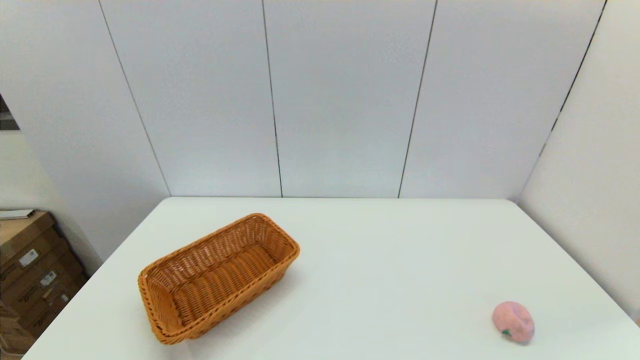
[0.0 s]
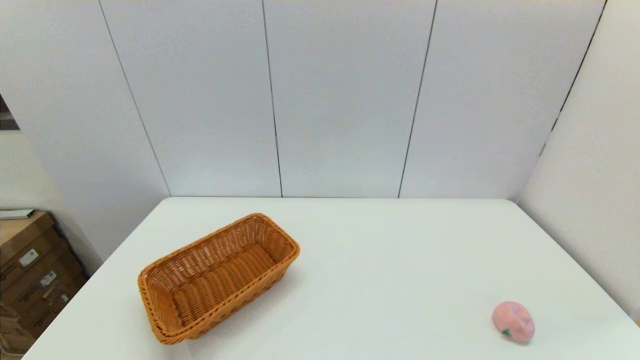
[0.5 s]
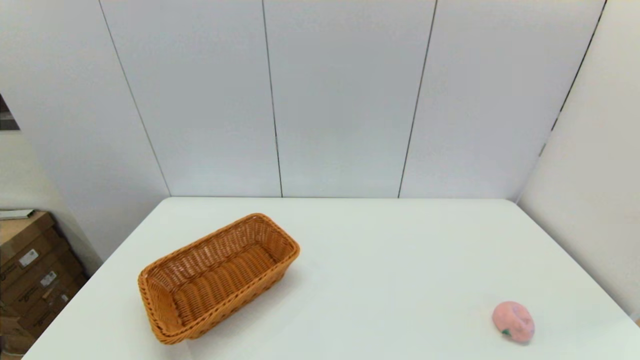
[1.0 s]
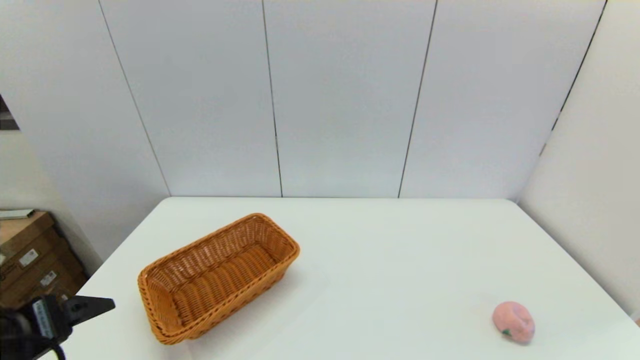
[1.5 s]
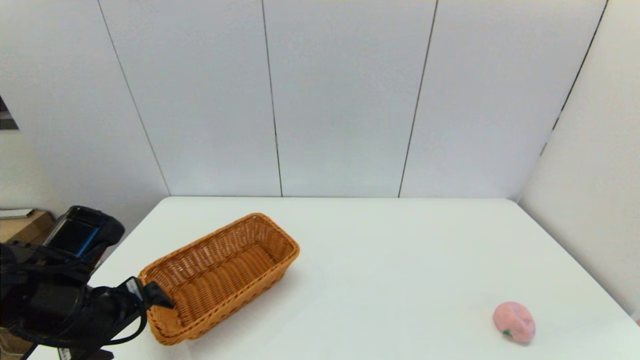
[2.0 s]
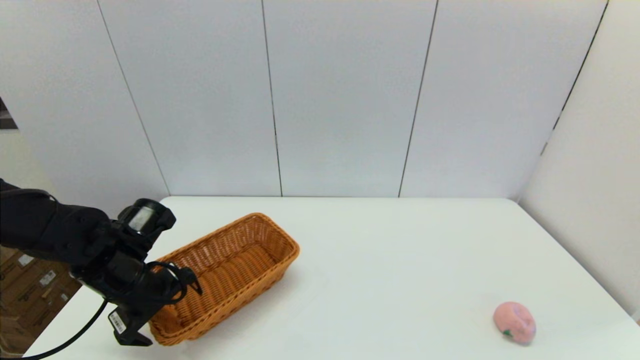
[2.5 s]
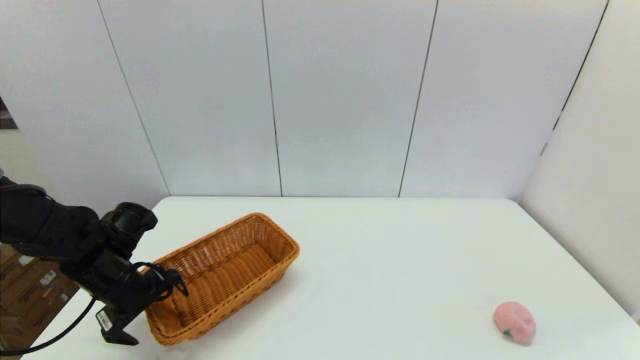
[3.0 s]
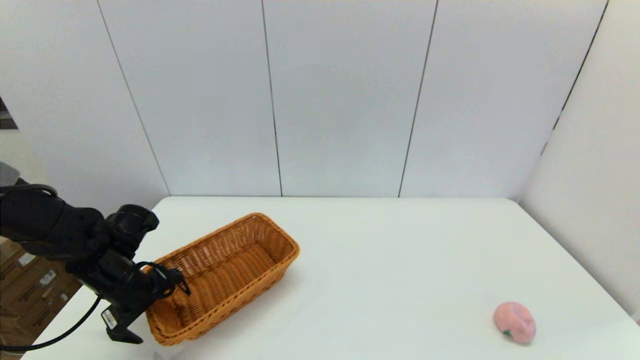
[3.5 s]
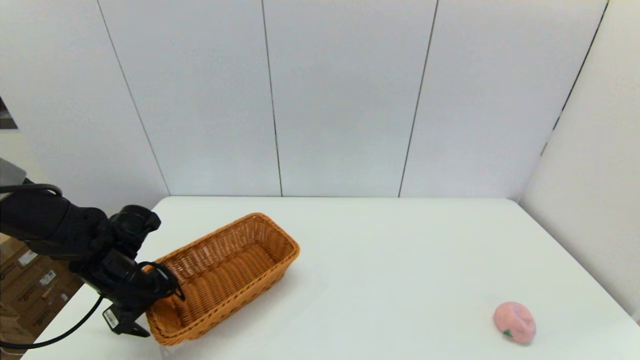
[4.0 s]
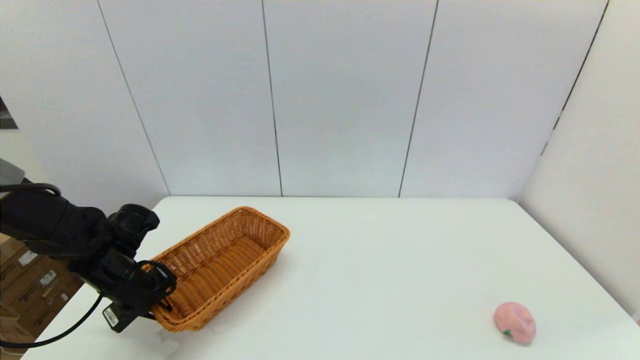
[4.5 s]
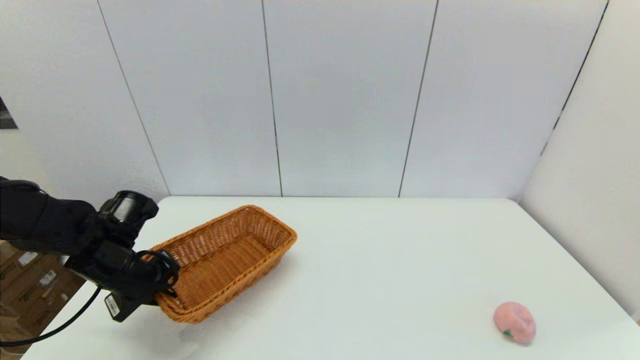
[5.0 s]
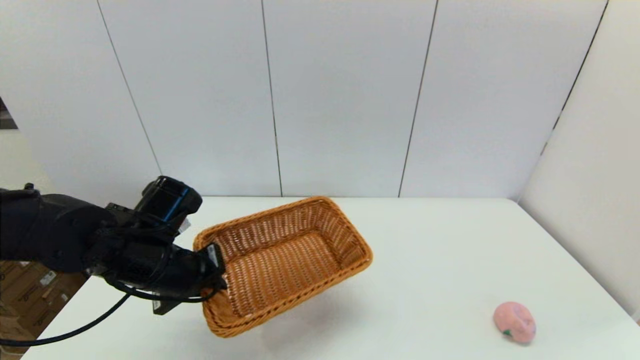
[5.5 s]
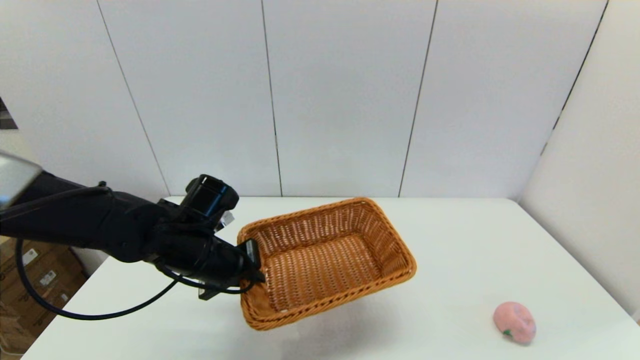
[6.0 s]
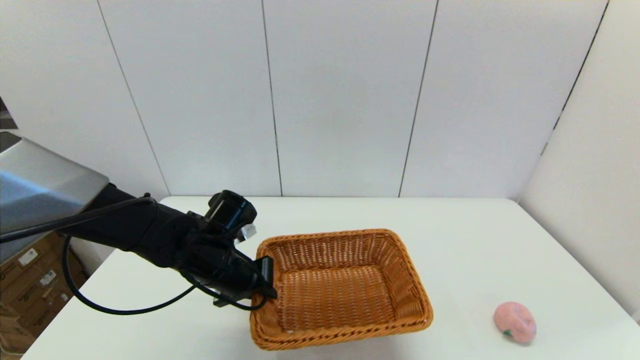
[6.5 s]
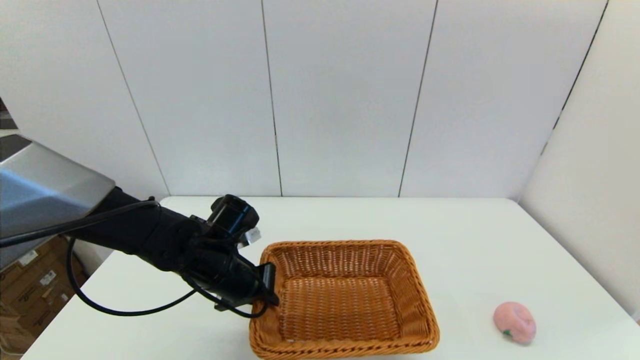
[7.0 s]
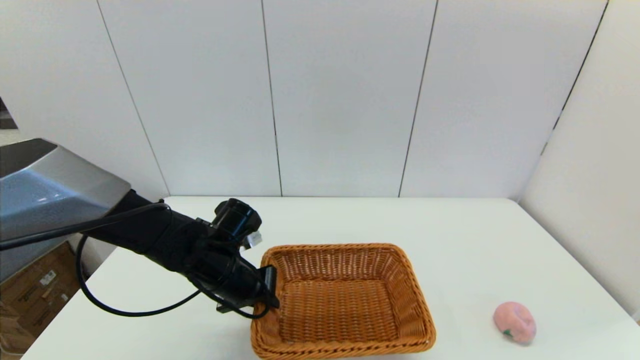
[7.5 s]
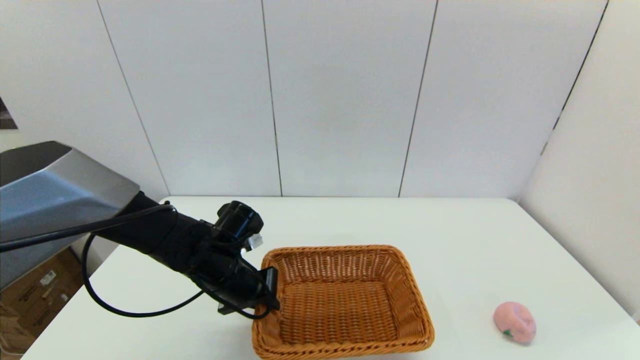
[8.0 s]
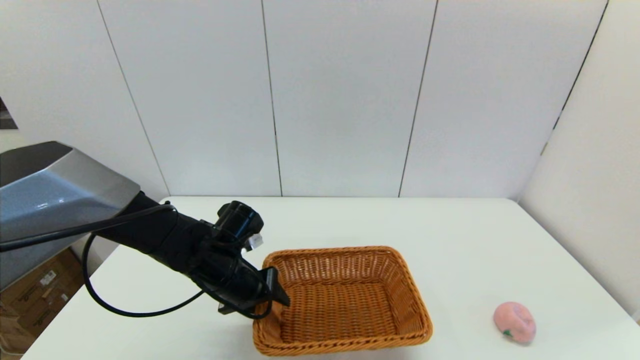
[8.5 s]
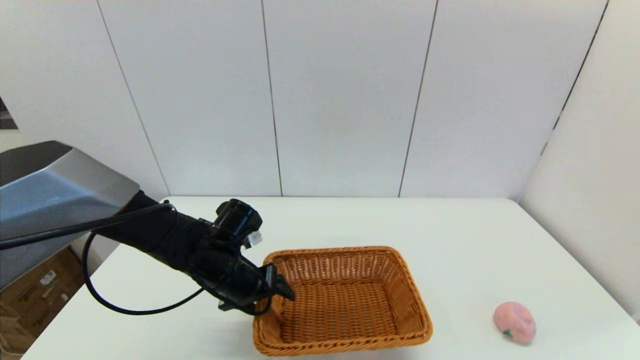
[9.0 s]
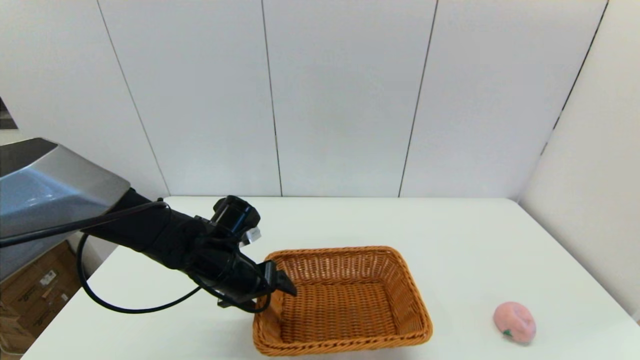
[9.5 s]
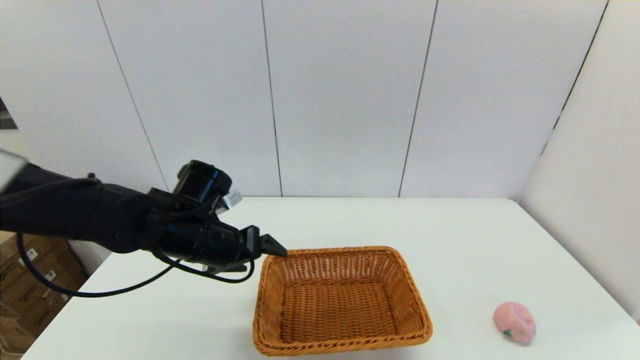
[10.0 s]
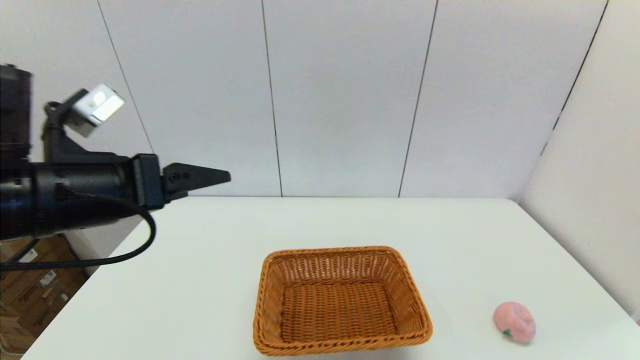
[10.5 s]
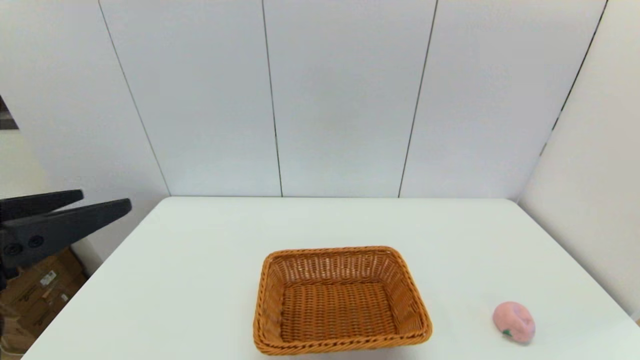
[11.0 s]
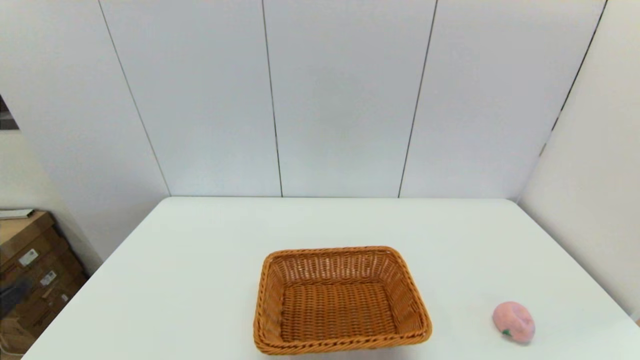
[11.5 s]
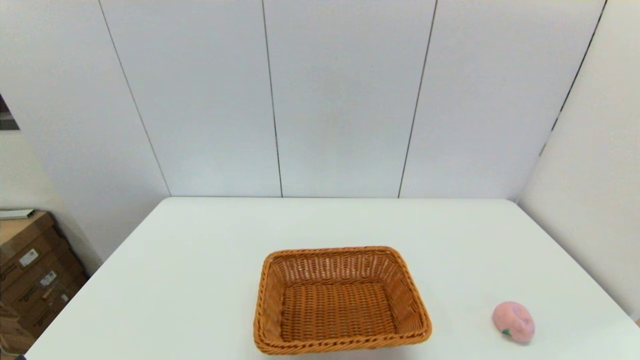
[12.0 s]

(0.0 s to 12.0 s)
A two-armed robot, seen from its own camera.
Step, 0.0 s - 4.5 s: Grasp the light basket with the left gripper.
Step, 5.0 s - 8.5 s: Place the light basket on the middle of the table with the left gripper.
0.0 s - 2.0 s: The left gripper heads forward, covering about 20 cm.
2.0 s - 4.0 s: The left gripper heads forward and downward, covering some 10 cm.
4.0 s - 6.0 s: The left gripper goes about 15 cm to the right, and closes up.
6.0 s - 8.0 s: The left gripper heads downward, covering some 5 cm.
8.0 s - 10.0 s: The left gripper shifts about 5 cm upward, and opens.
10.0 s - 12.0 s: The left gripper is displaced backward and to the left by about 35 cm.

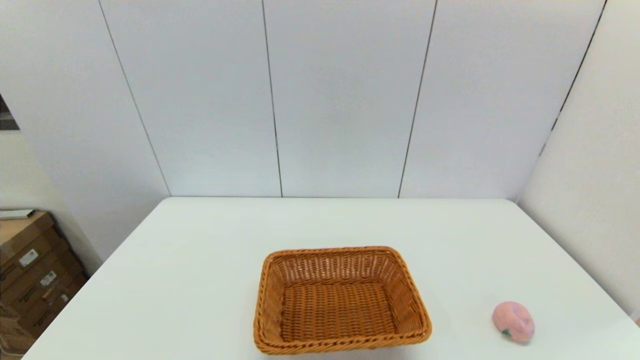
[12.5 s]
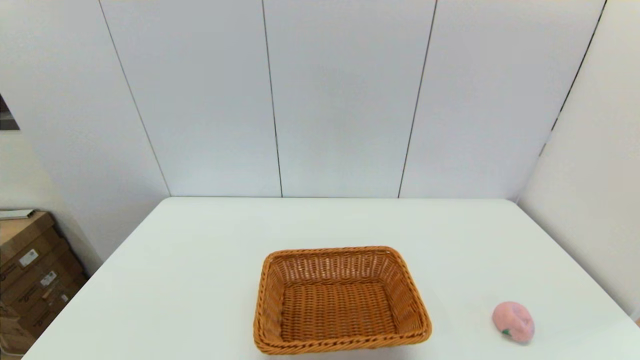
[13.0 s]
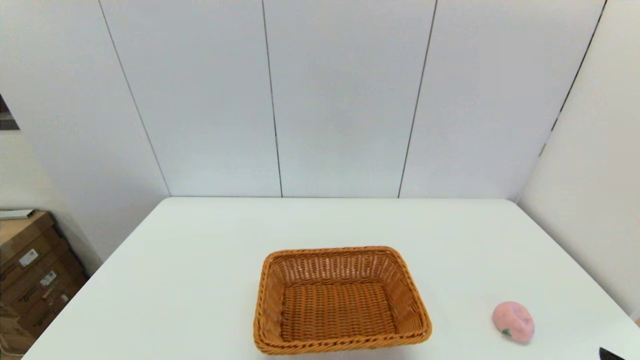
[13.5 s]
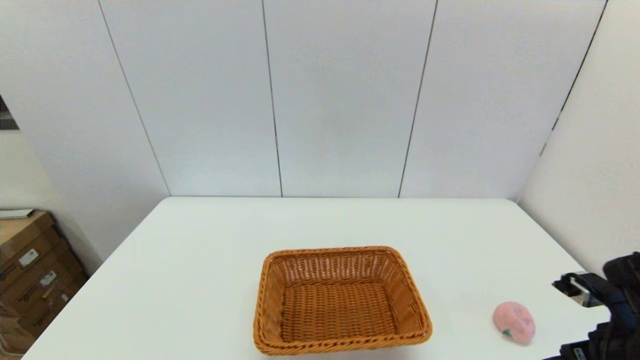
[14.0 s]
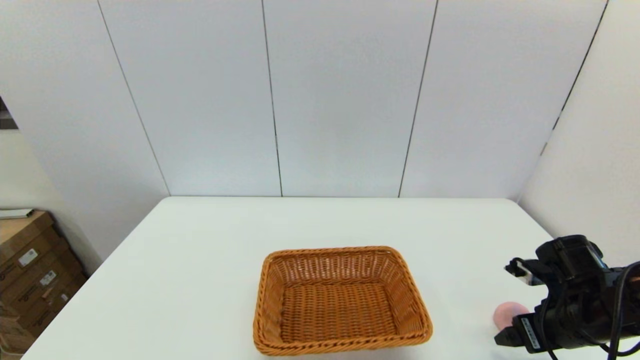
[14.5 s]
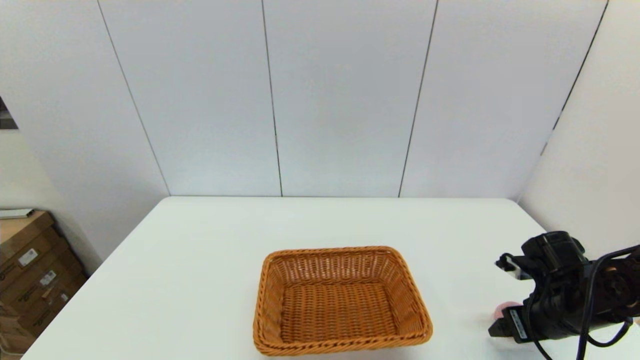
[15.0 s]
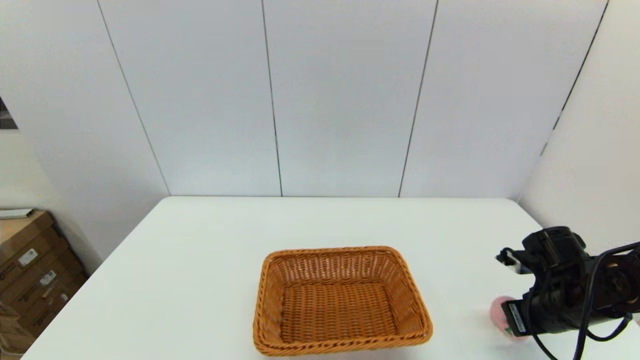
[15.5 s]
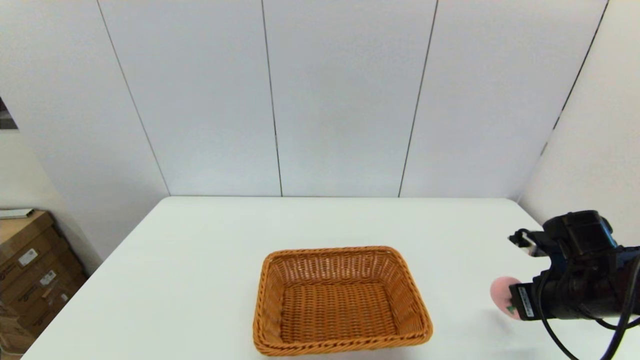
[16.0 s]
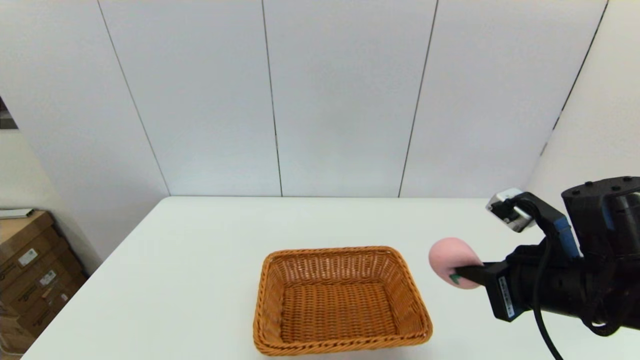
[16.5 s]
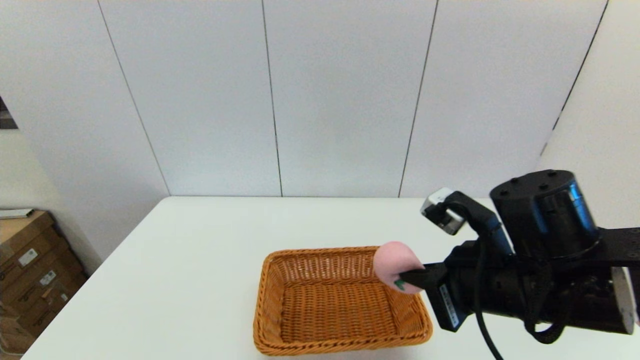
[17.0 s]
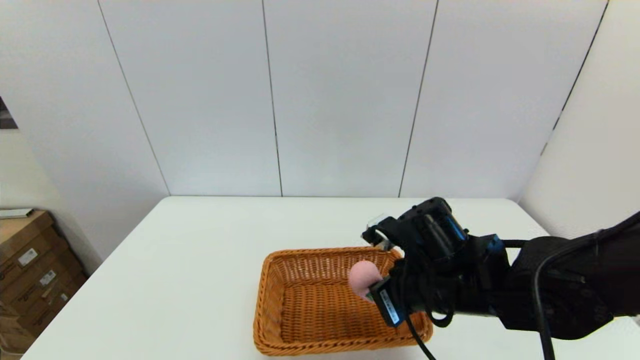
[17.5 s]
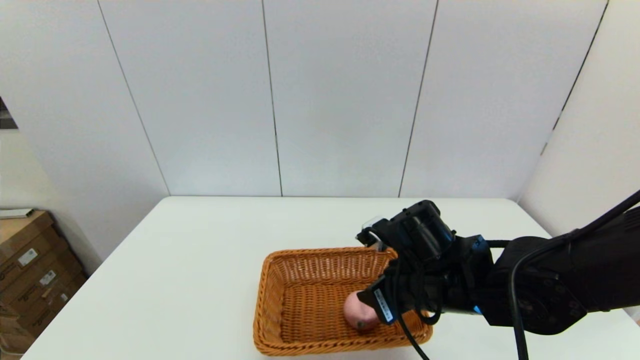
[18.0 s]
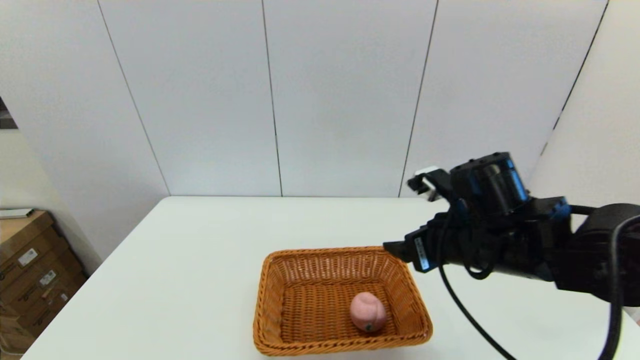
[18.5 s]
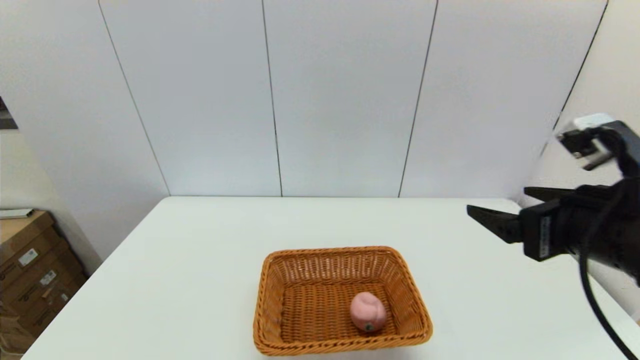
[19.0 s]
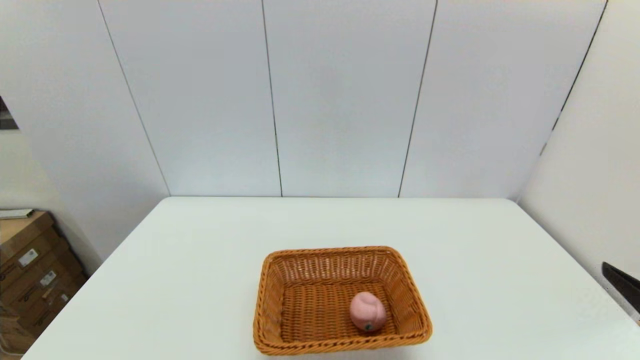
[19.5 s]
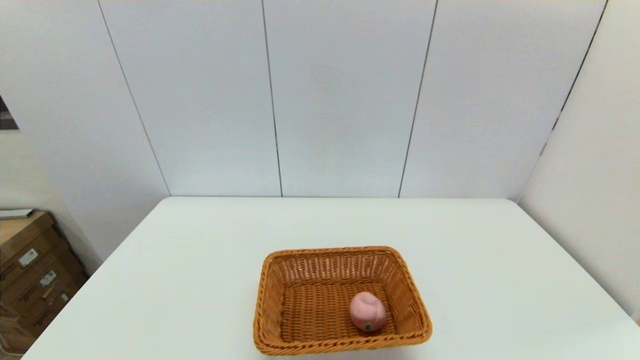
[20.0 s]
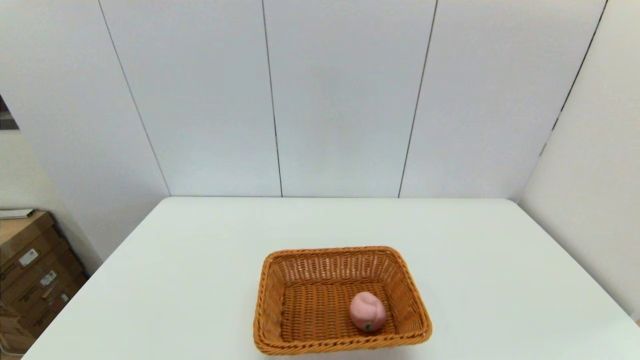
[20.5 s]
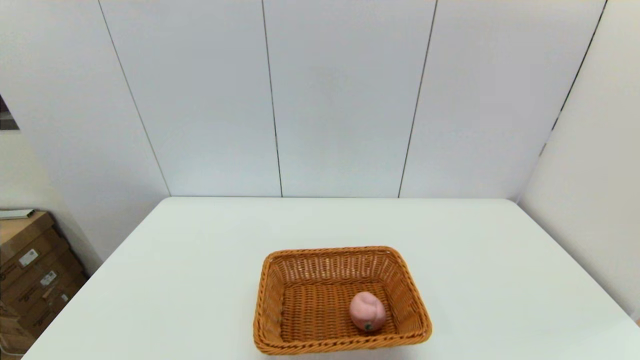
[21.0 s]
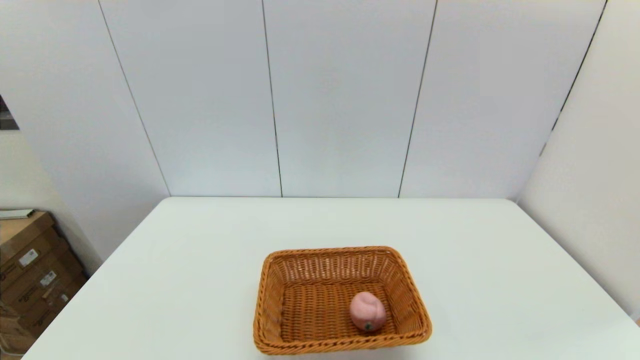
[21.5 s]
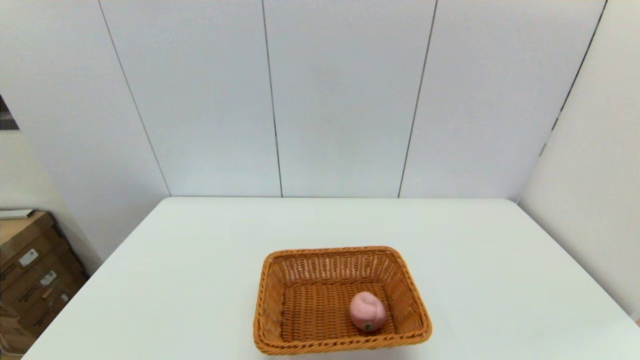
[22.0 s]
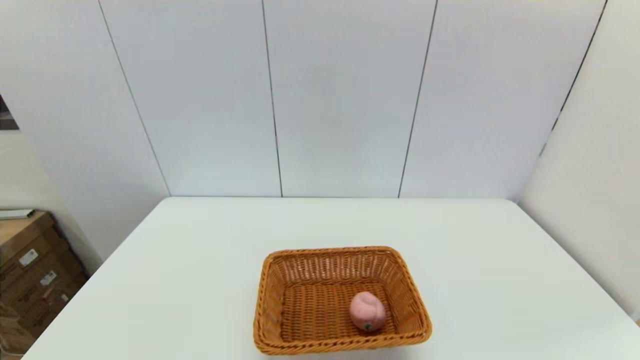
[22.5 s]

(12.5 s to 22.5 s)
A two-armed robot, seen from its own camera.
Step, 12.5 s - 15.5 s: Grasp the peach with the right gripper.
Step, 16.0 s - 18.0 s: Place the peach into the light basket with the right gripper.
12.5 s - 14.5 s: The right gripper shifts some 25 cm forward.
14.5 s - 16.5 s: The right gripper shifts approximately 15 cm upward and to the left, and closes its fingers.
16.5 s - 18.5 s: The right gripper heads forward, covering about 5 cm, and opens its fingers.
18.5 s - 20.5 s: The right gripper is displaced backward and to the right by some 30 cm.
